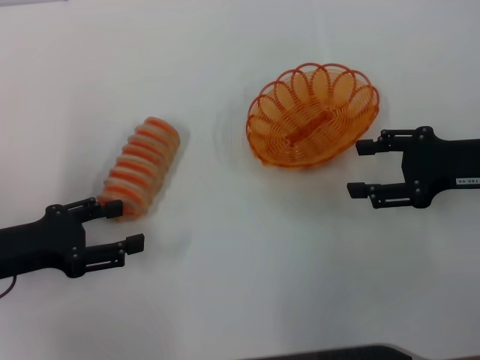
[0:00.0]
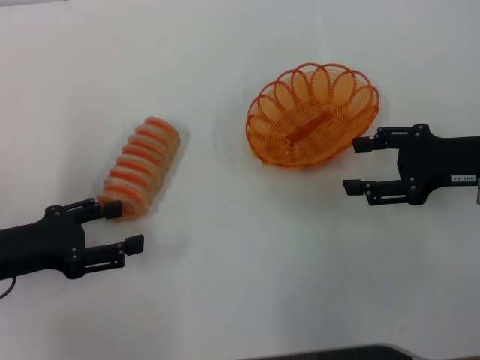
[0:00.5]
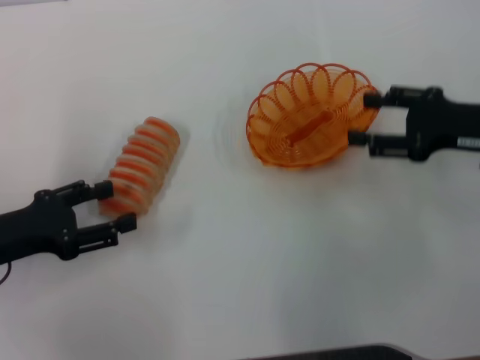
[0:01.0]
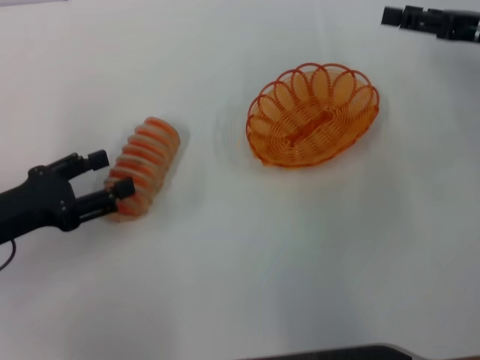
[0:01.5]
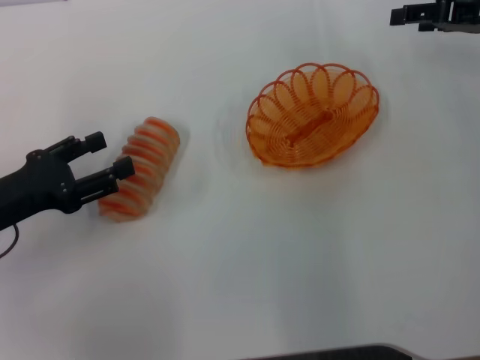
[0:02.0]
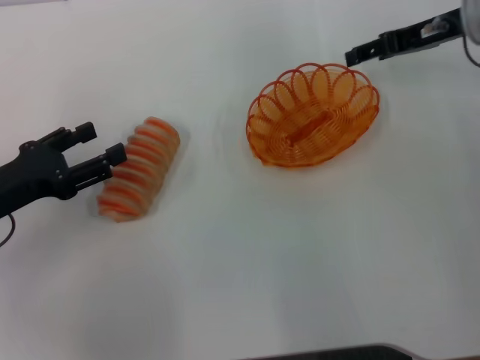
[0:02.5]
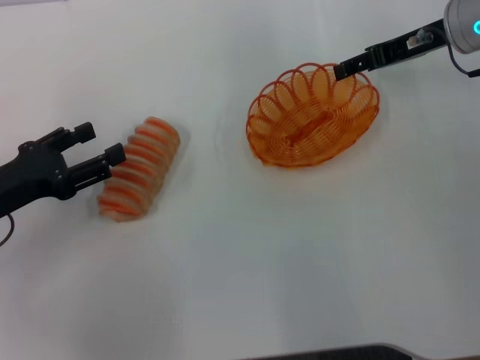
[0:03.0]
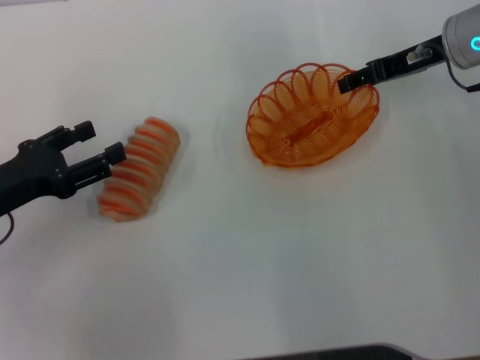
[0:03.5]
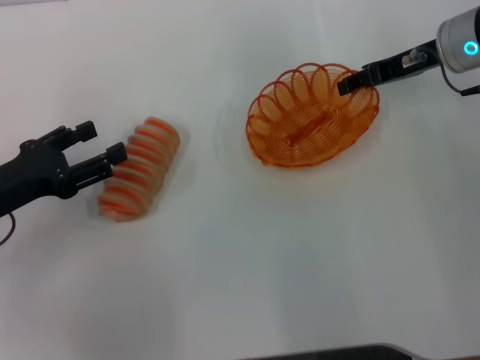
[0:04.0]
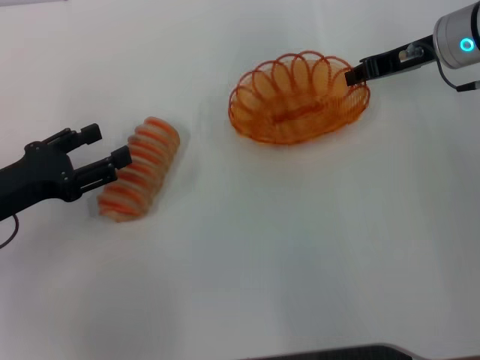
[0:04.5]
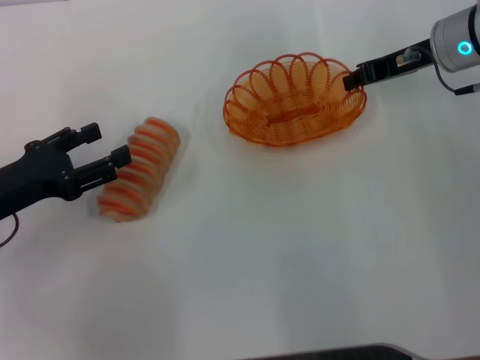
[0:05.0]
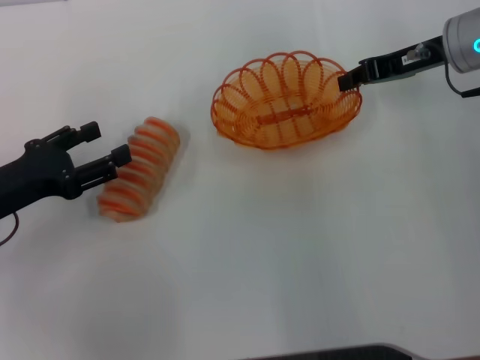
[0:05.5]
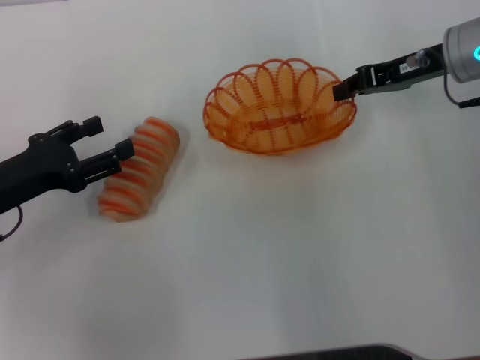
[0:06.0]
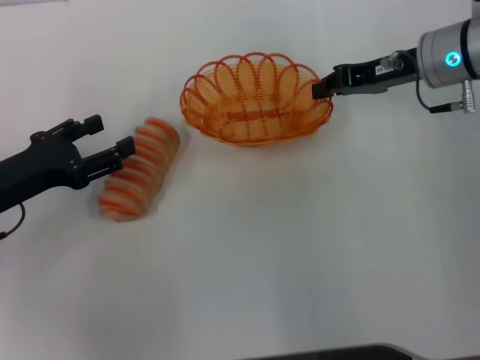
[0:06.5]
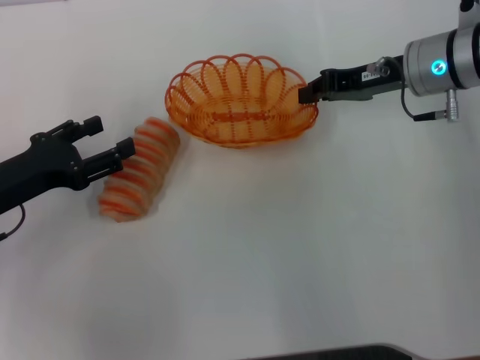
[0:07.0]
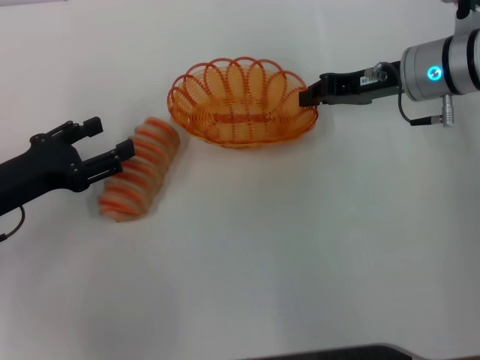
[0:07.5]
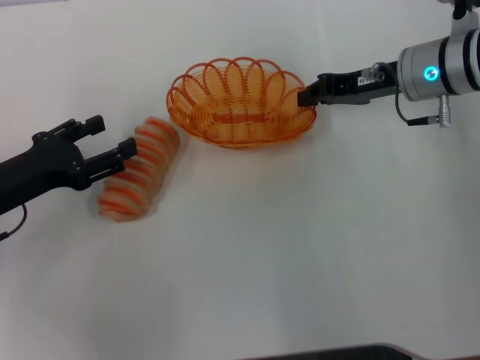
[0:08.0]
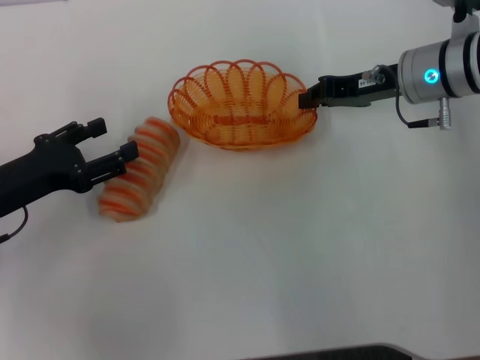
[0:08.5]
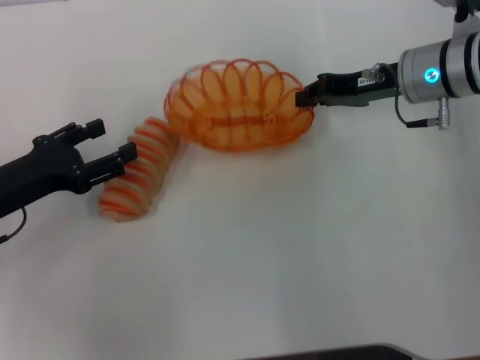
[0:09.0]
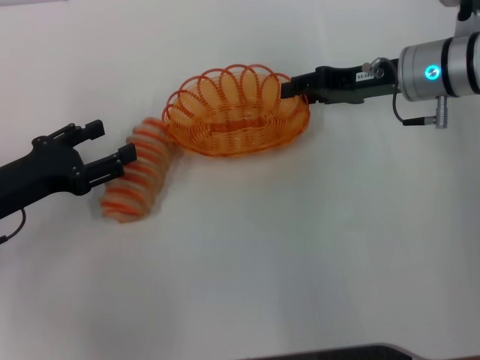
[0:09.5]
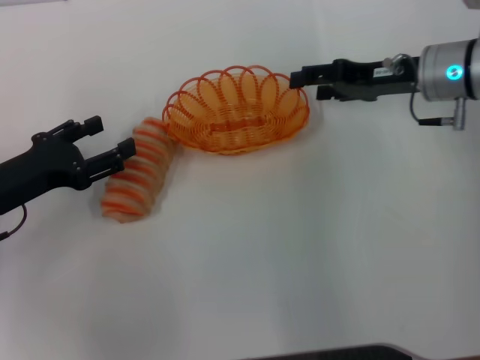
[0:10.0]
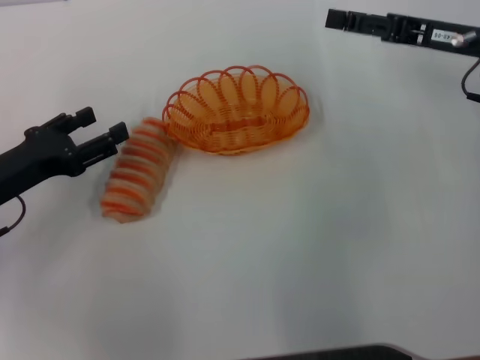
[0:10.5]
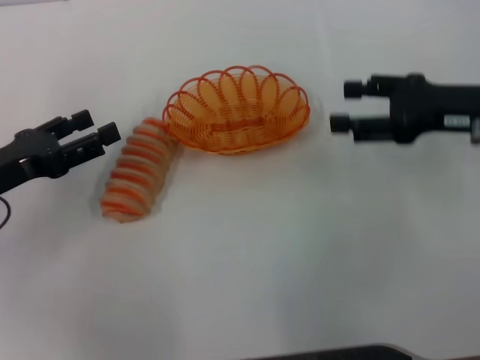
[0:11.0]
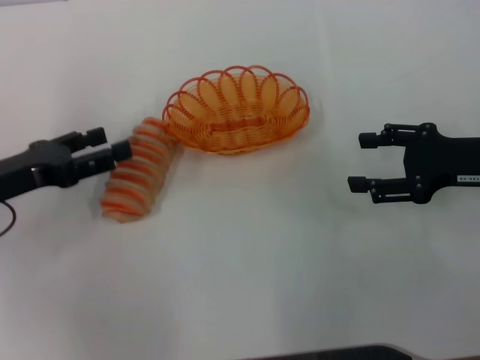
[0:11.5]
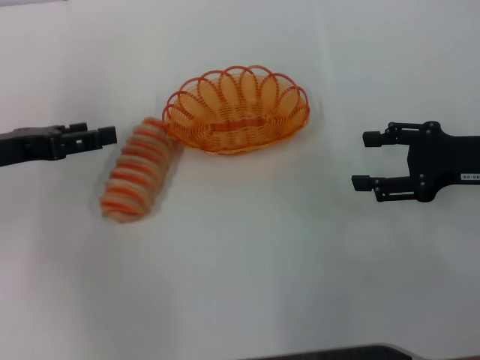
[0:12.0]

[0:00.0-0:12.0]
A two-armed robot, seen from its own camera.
Step, 0:00.0 to 0:05.5: Pick up the basket with the right gripper.
Step, 0:06.0 to 0:10.0: Place the basket in the center of view with the right gripper.
0:00.0 to 0:02.0: The right gripper is displaced forward and upward by about 15 cm.
0:02.0 to 0:04.0: The right gripper heads to the left, covering roughly 10 cm.
0:04.0 to 0:06.0: The right gripper closes up.
0:06.0 to 0:08.0: The grippers stay close to where they were, moving slightly.
0:08.0 to 0:10.0: The right gripper opens its fingers.
0:10.0 to 0:12.0: The right gripper is displaced backward and to the right by approximately 10 cm, while the left gripper moves roughly 5 cm.

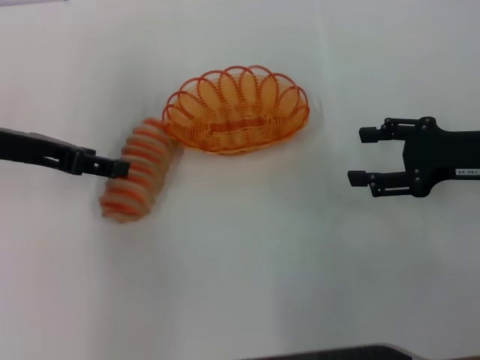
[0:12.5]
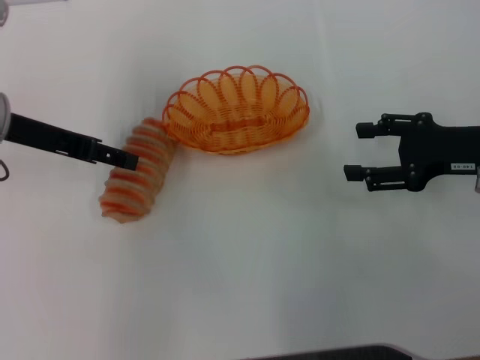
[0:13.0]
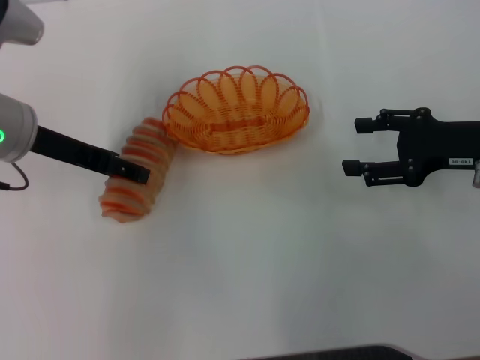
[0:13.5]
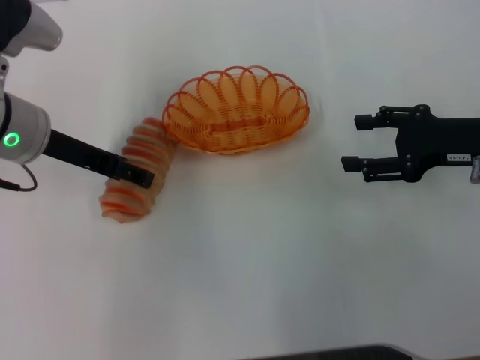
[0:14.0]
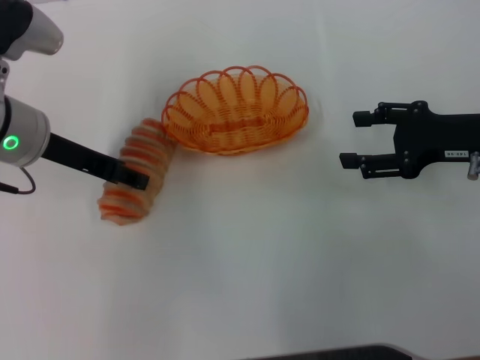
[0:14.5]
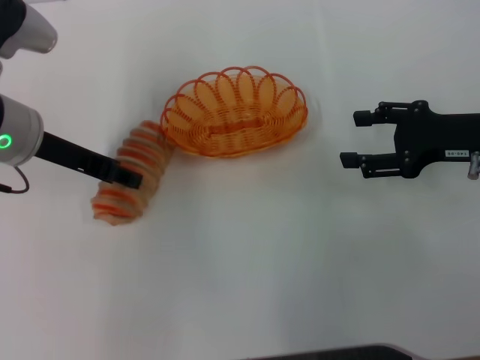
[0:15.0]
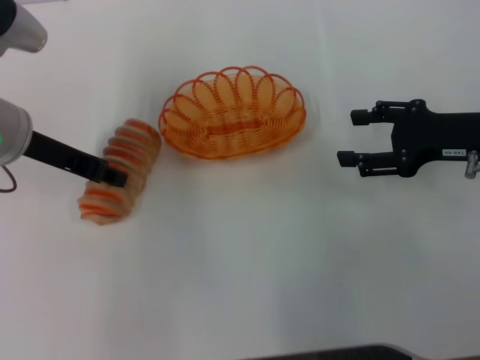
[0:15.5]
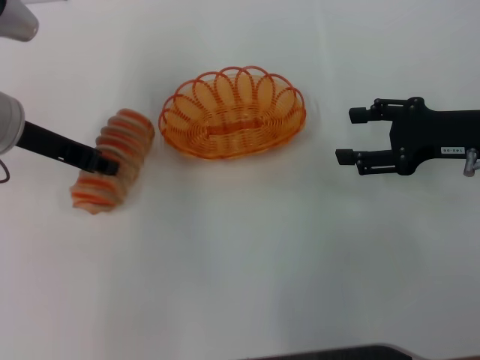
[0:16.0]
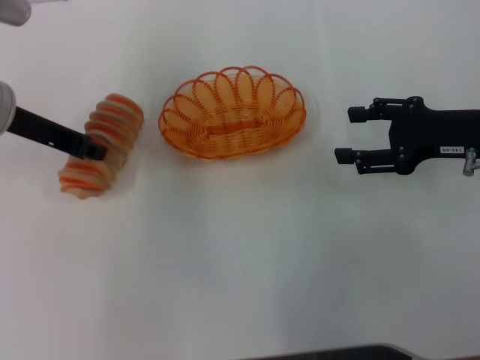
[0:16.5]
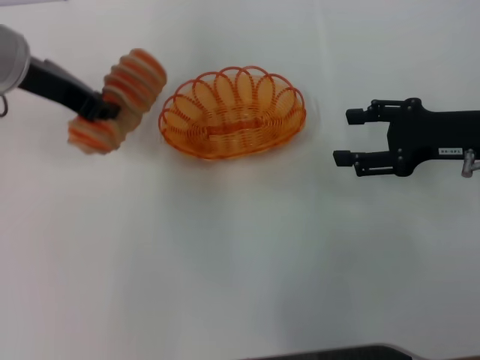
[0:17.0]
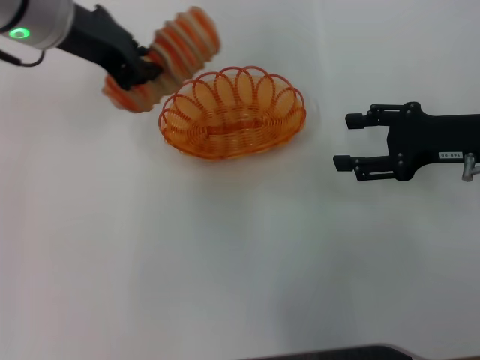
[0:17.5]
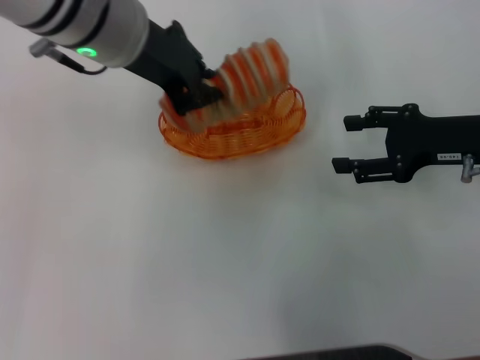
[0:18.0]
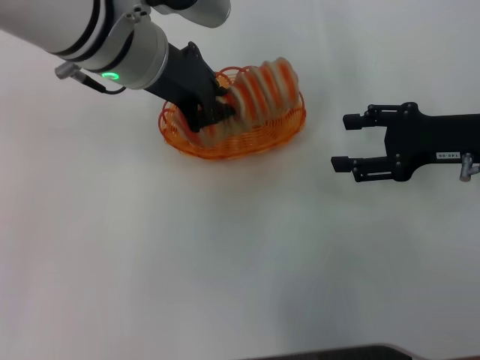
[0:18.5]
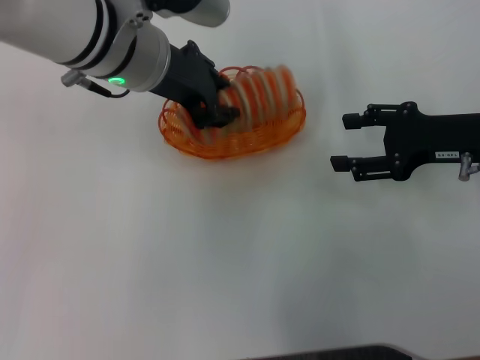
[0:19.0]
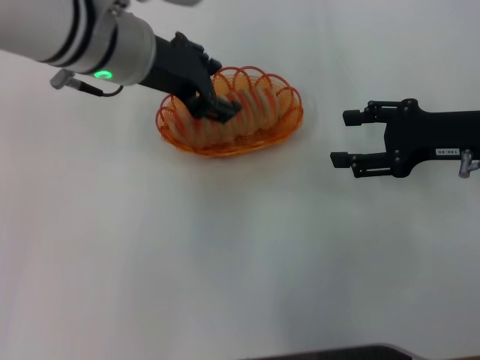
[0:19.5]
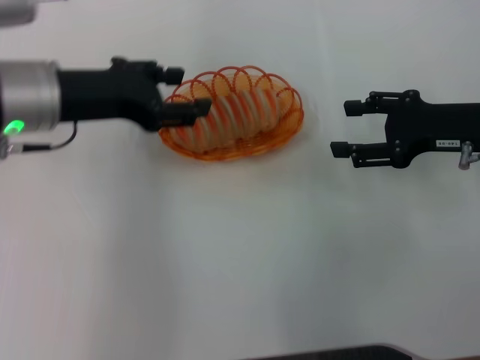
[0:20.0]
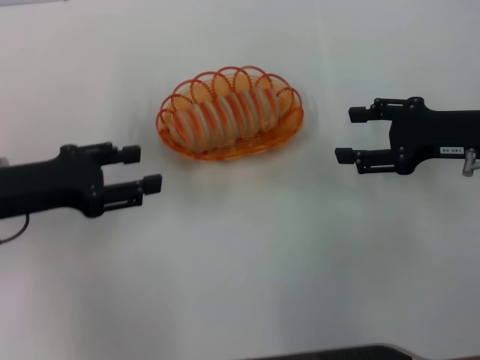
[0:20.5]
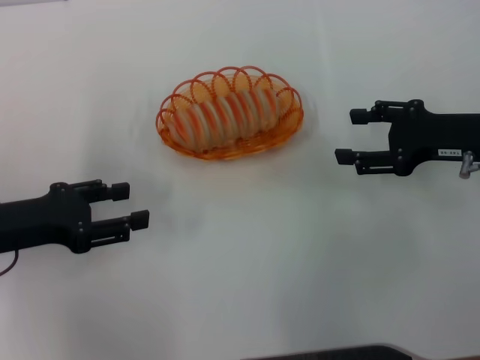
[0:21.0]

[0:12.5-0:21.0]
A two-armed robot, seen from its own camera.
Step, 0:12.5 to 0:16.5: Pick up the long bread with the left gripper.
Step, 0:17.0 to 0:20.0: Place the long bread into the basket with the left gripper.
0:12.5 to 0:14.5: The left gripper moves to the right, some 5 cm.
0:14.5 to 0:16.5: The left gripper closes.
0:16.5 to 0:19.0: The left gripper travels to the right by roughly 15 cm.
0:19.0 to 0:21.0: The left gripper is displaced to the left, downward and backward by approximately 25 cm, and opens up.
